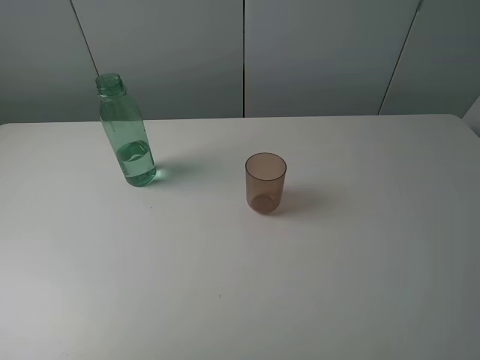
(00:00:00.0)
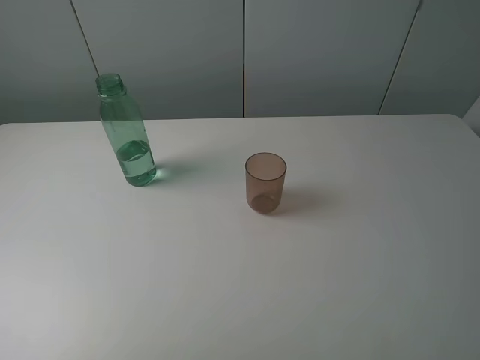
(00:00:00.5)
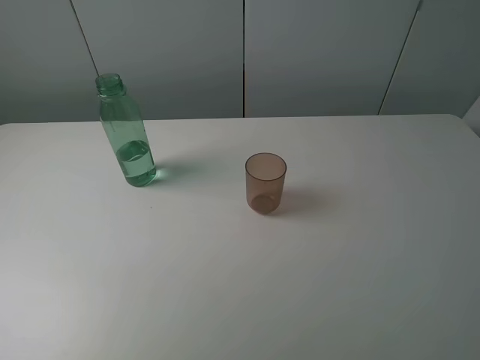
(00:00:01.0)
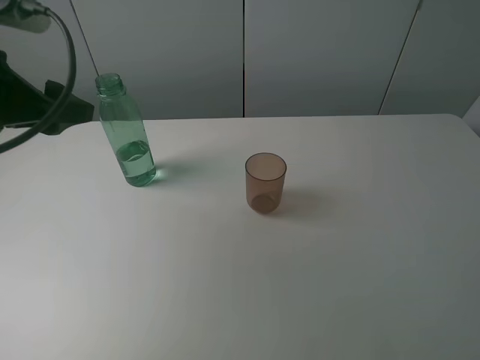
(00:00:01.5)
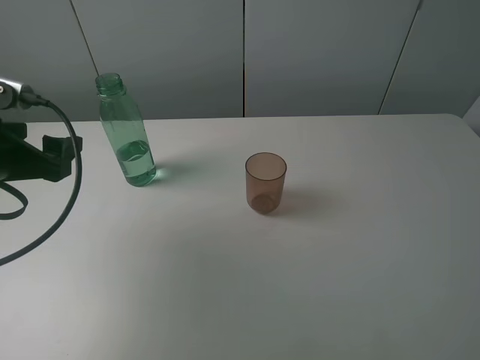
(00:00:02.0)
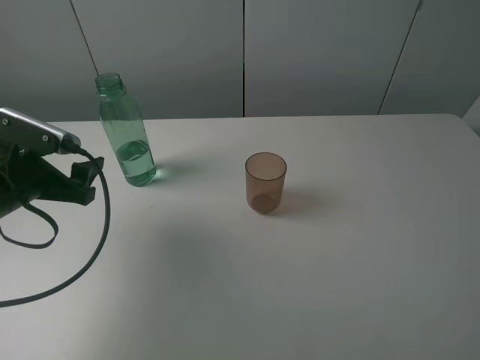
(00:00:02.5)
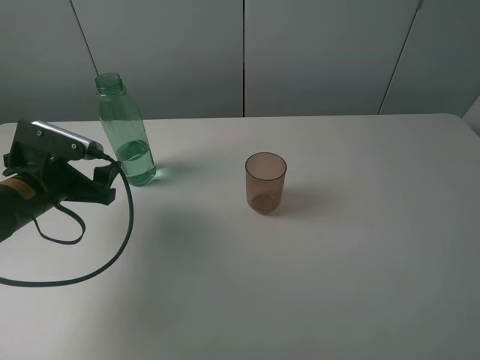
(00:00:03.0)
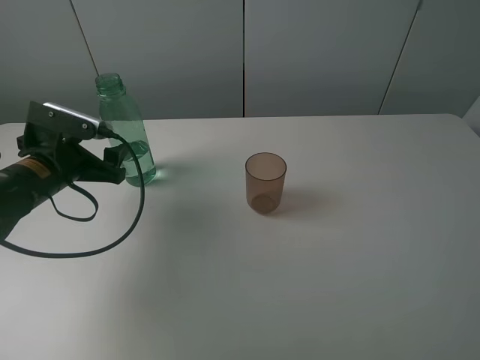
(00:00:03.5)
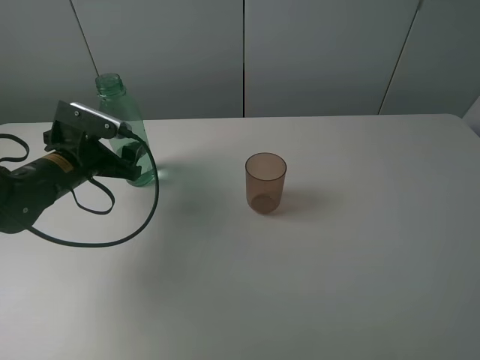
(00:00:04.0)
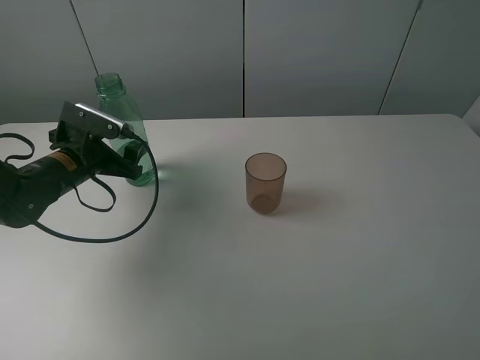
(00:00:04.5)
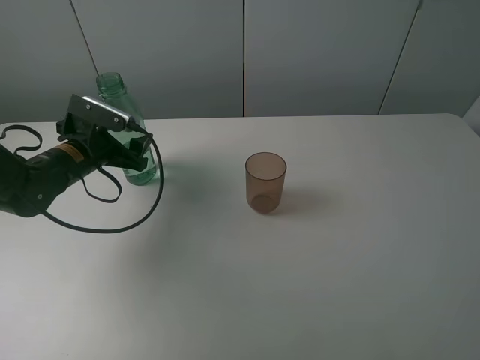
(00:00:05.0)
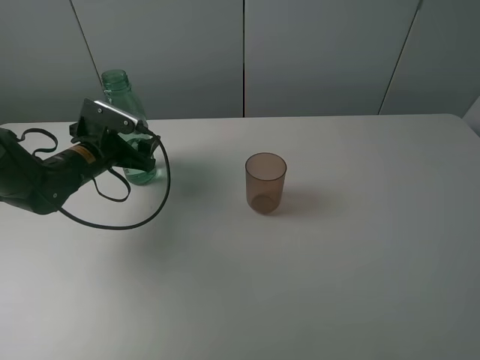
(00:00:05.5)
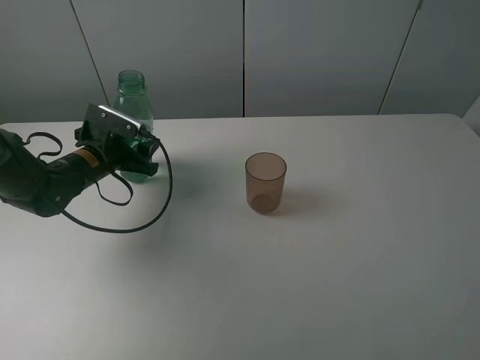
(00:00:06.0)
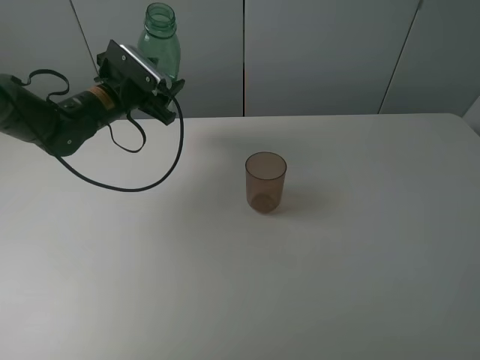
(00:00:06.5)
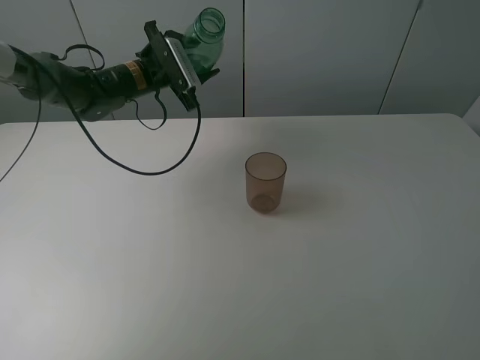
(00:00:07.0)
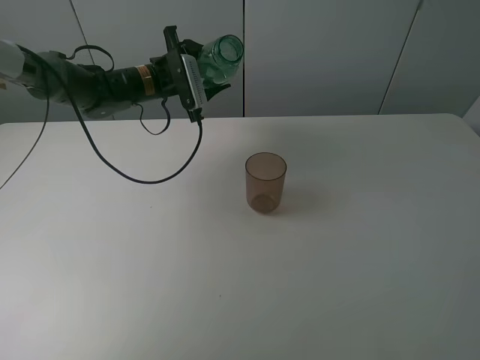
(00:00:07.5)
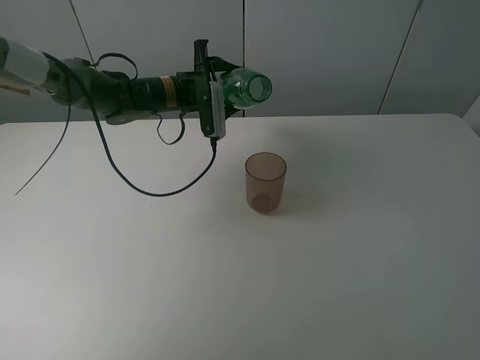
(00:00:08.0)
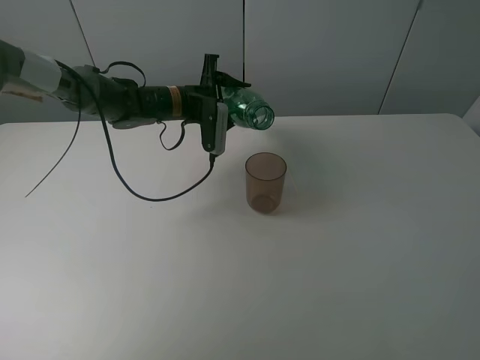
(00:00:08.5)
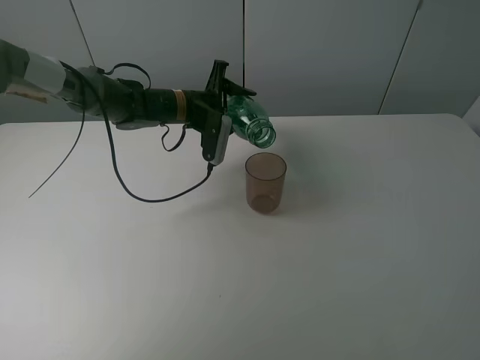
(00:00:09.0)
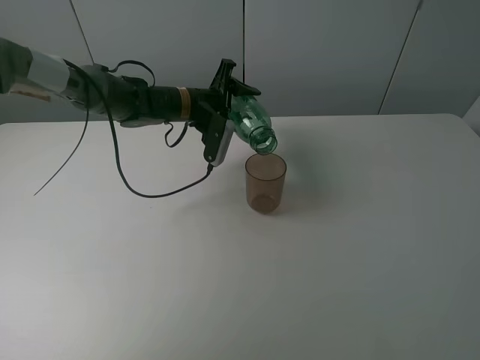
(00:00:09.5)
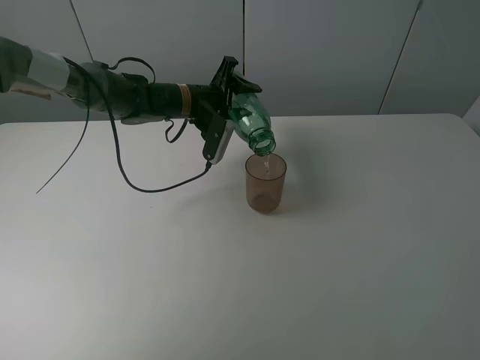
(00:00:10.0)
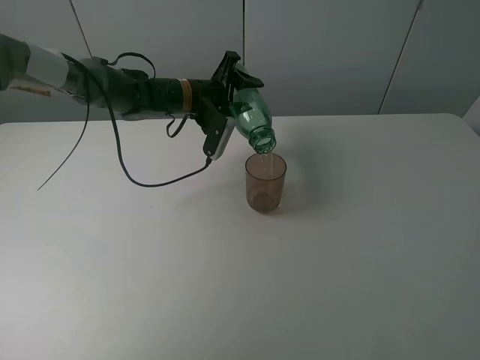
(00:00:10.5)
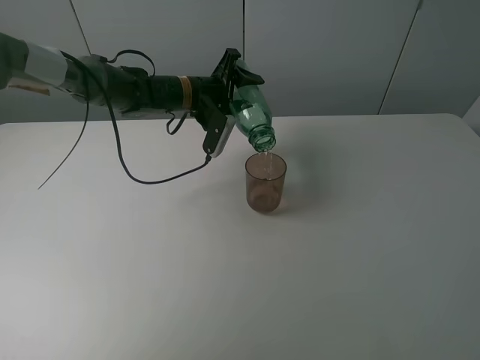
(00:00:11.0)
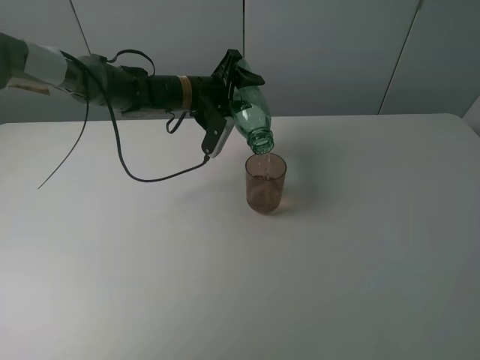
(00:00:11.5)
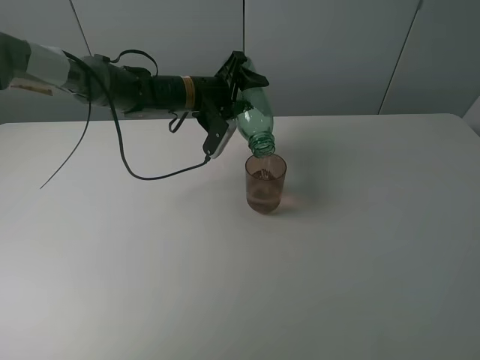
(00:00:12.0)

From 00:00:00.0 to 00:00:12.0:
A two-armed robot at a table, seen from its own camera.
Task of the whole recording: pick up the bottle filled with water and pour it into the pink cup.
Step, from 00:00:00.0 to 00:00:05.5: Grasp the green bottle with the left gripper.
From 00:00:00.0 to 00:00:02.0: The left gripper is displaced forward and downward by approximately 25 cm.
From 00:00:02.0 to 00:00:04.0: The left gripper heads forward and downward, covering approximately 15 cm.
From 00:00:04.0 to 00:00:06.0: The left gripper ends up some 5 cm from where it was, and closes.
From 00:00:06.0 to 00:00:08.0: The left gripper moves to the right, forward and upward, roughly 20 cm.
From 00:00:10.0 to 00:00:12.0: The grippers move only a little.

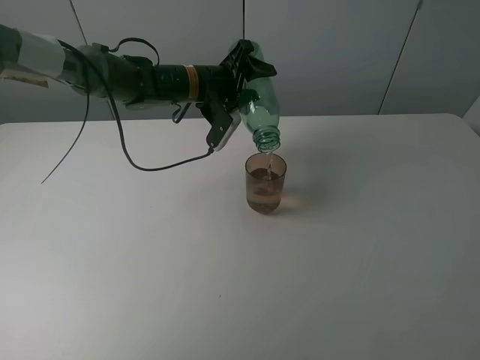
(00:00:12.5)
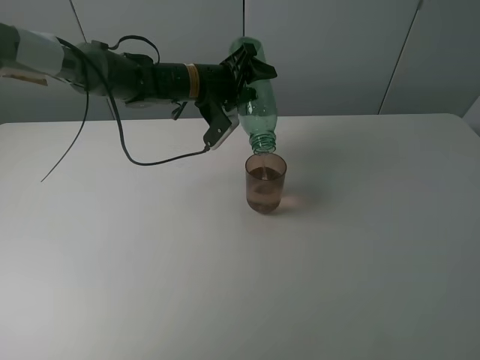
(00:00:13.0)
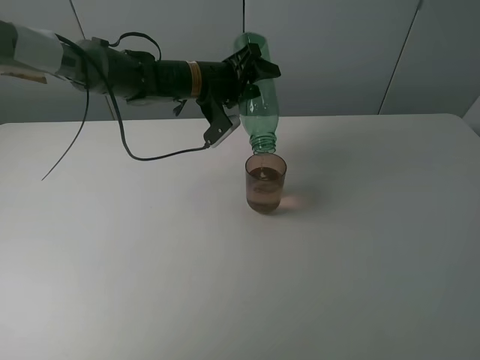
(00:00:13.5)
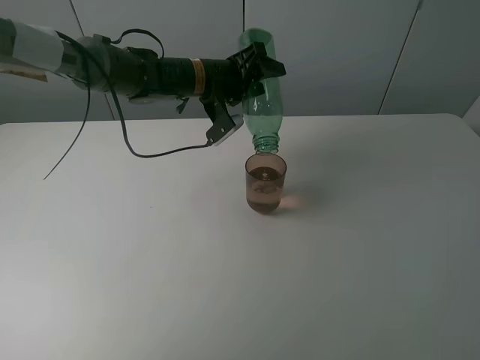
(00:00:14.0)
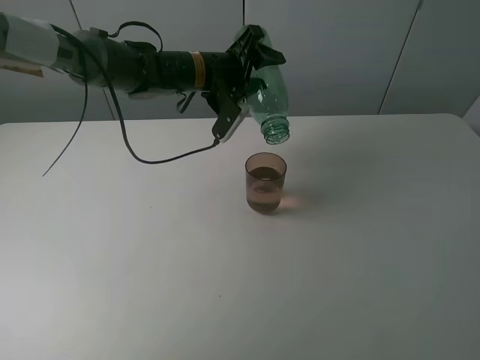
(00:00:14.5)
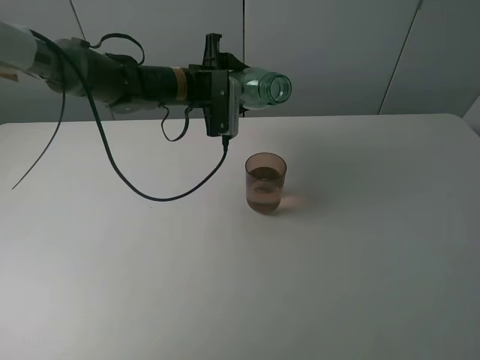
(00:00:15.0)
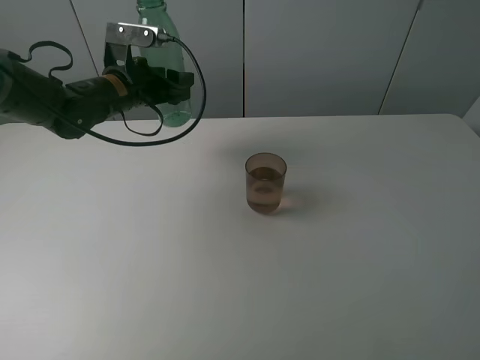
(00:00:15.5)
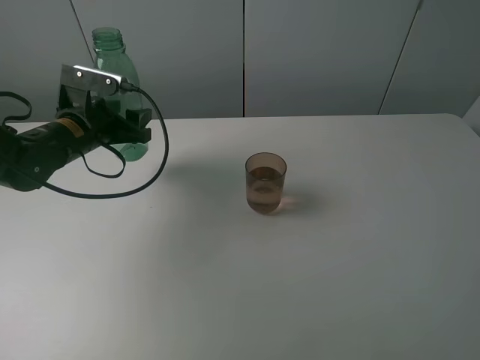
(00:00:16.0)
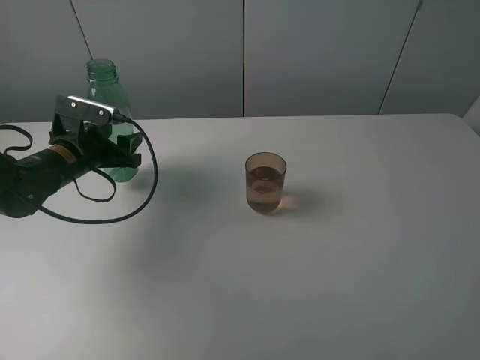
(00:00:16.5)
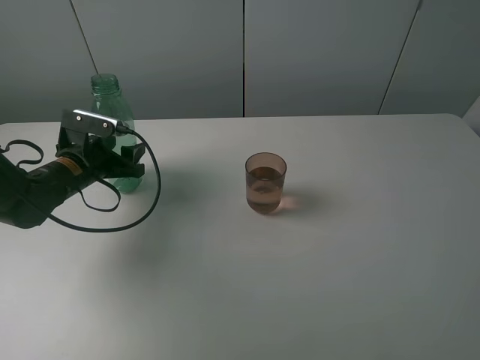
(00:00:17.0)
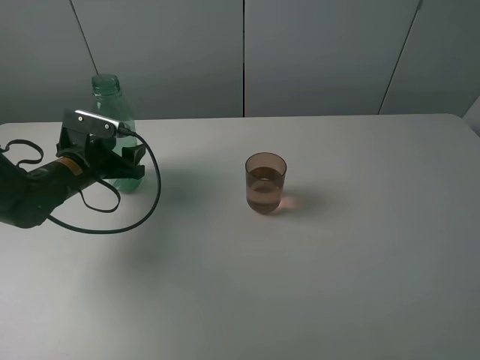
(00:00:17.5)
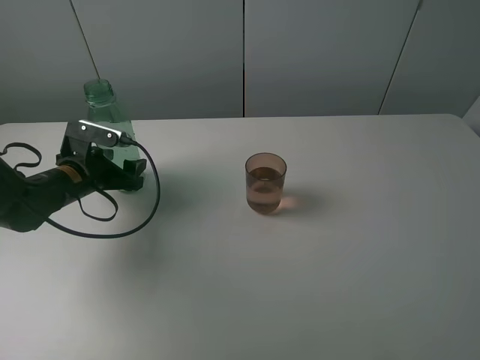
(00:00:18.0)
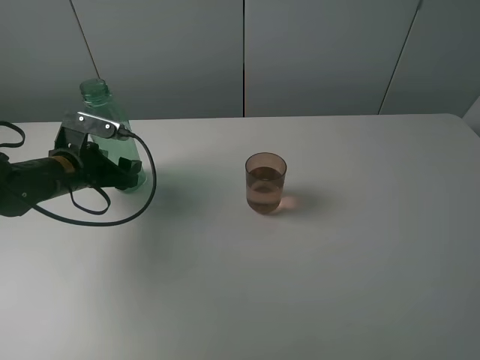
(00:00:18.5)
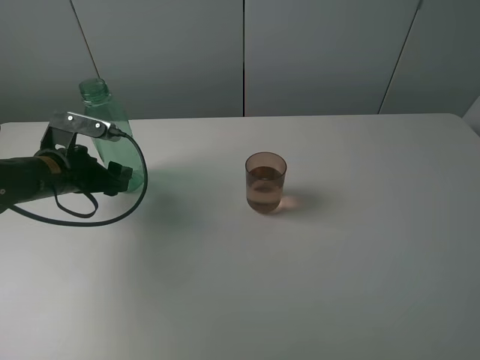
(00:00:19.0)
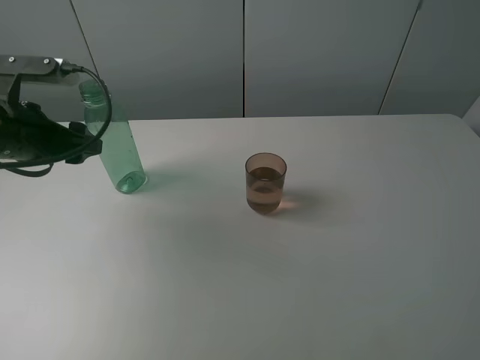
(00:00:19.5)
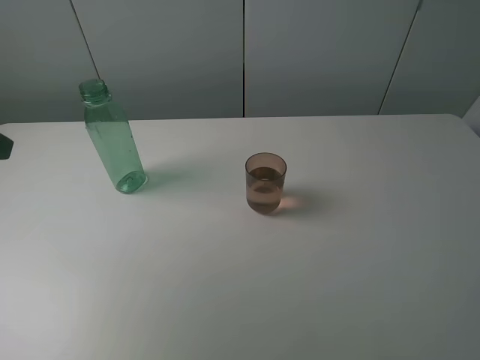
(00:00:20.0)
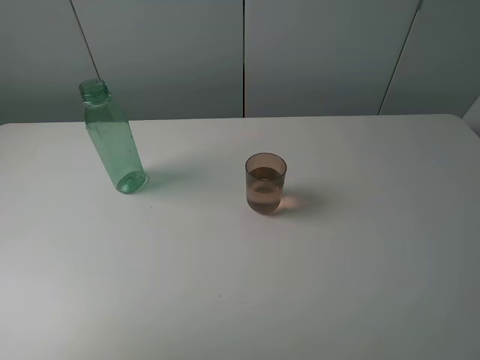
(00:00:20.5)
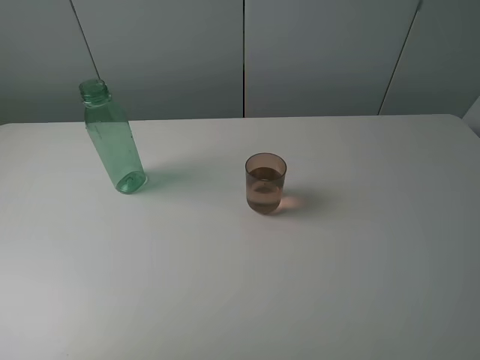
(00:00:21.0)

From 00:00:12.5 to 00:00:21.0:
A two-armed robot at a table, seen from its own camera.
Task of the whole recording: pick up the bottle filled with water and pour it into the pink cup.
Step, from 00:00:12.5 to 00:00:14.5: Pour water from green bottle to pink cup with the left gripper.
Step, from 00:00:15.0 to 00:00:19.0: Place the green bottle with the left gripper.
From 00:00:12.5 to 00:00:14.5: The grippers stay close to where they were, moving slightly.
From 00:00:14.5 to 00:00:16.5: The left gripper travels to the left, backward and downward by about 25 cm.
From 00:00:16.5 to 00:00:19.0: The left gripper opens up.
From 00:00:19.0 to 00:00:21.0: The left gripper travels backward and upward by some 35 cm.
